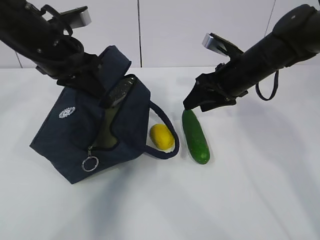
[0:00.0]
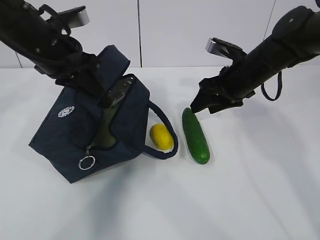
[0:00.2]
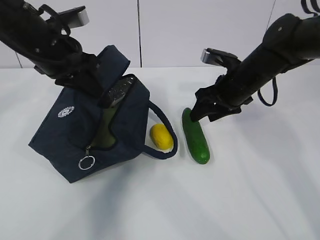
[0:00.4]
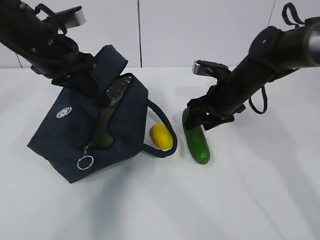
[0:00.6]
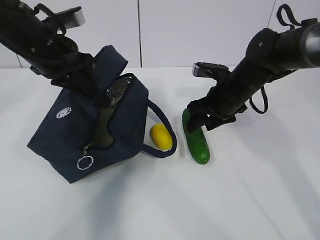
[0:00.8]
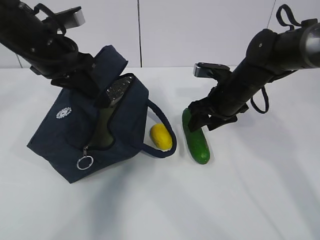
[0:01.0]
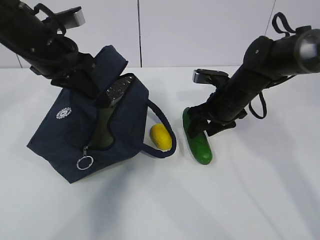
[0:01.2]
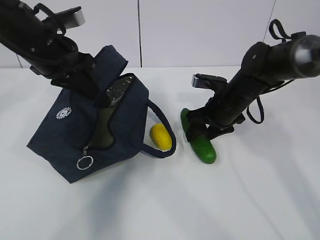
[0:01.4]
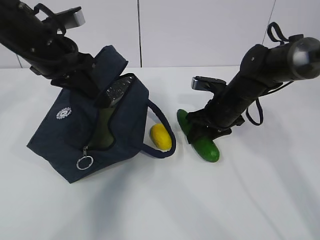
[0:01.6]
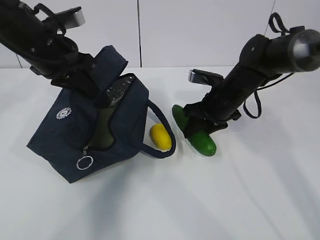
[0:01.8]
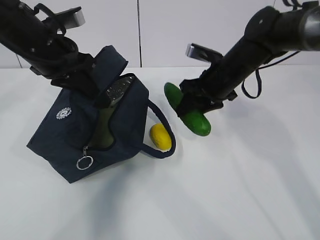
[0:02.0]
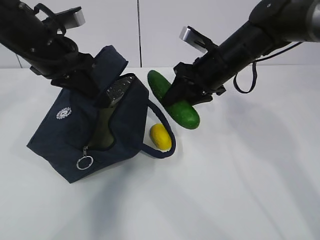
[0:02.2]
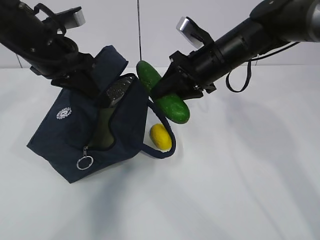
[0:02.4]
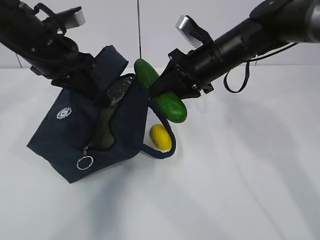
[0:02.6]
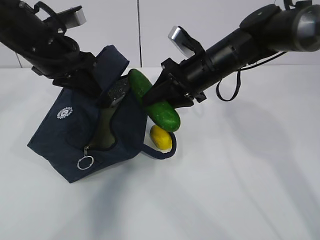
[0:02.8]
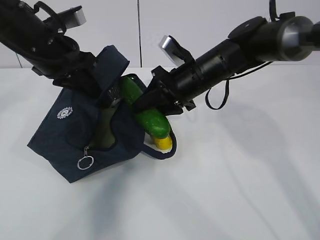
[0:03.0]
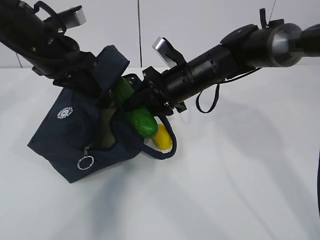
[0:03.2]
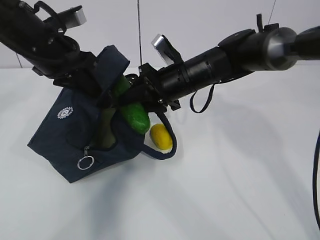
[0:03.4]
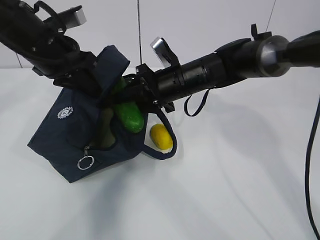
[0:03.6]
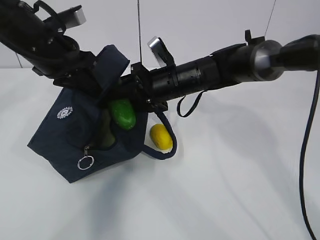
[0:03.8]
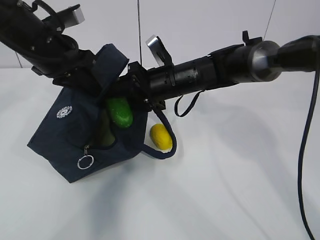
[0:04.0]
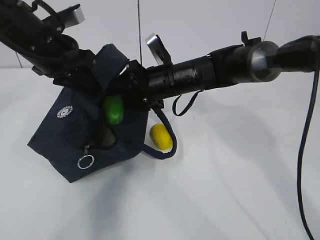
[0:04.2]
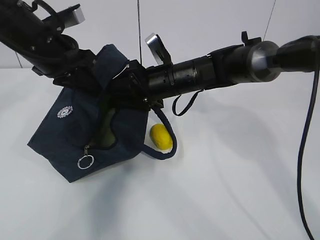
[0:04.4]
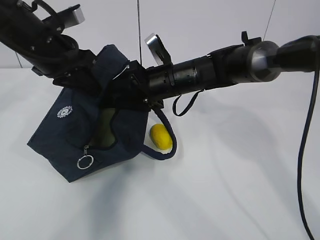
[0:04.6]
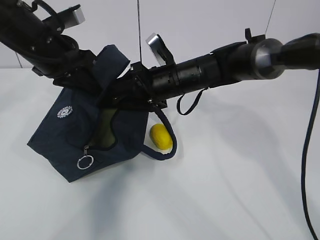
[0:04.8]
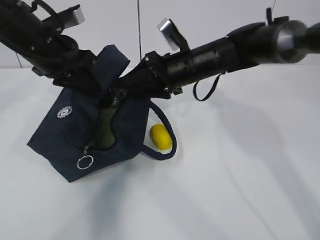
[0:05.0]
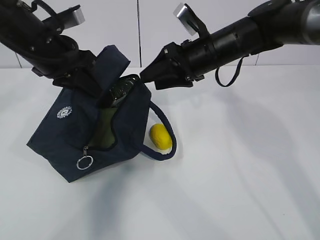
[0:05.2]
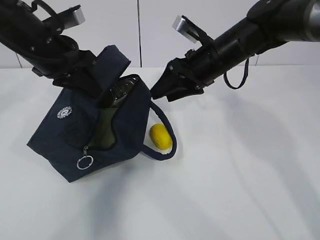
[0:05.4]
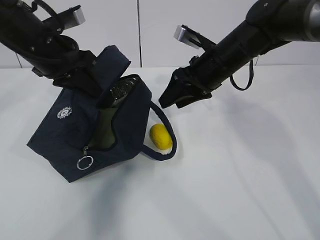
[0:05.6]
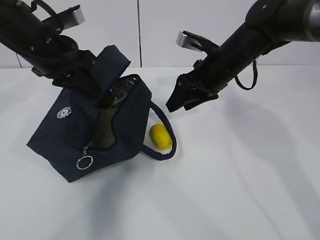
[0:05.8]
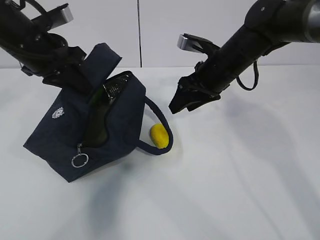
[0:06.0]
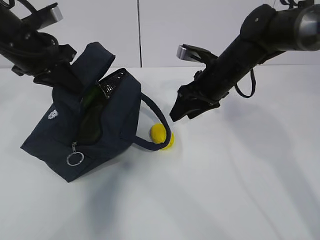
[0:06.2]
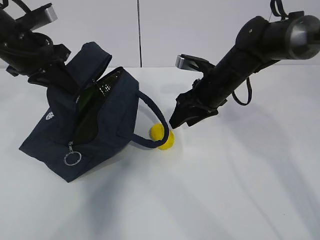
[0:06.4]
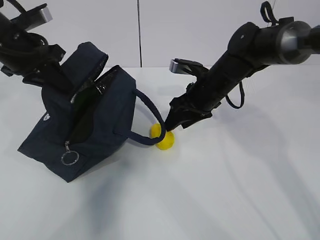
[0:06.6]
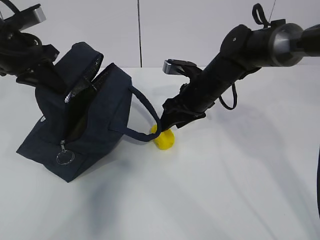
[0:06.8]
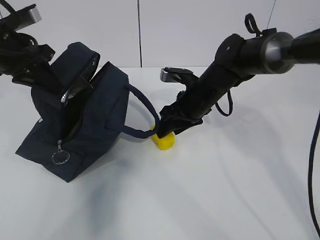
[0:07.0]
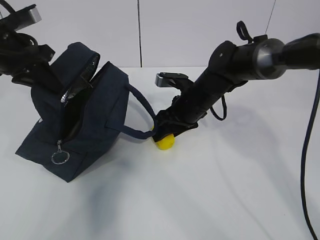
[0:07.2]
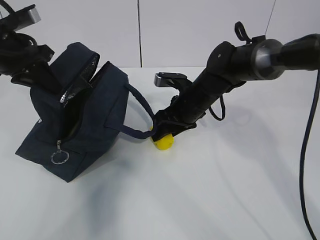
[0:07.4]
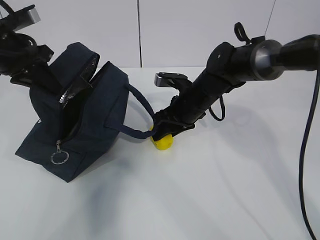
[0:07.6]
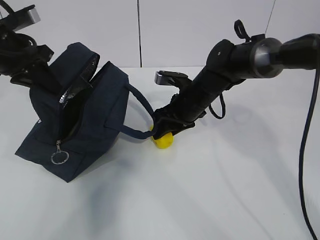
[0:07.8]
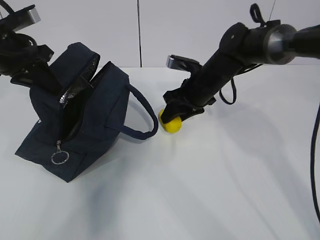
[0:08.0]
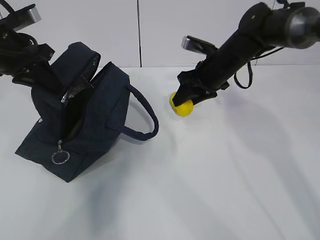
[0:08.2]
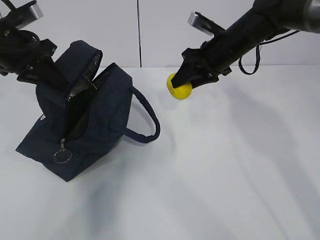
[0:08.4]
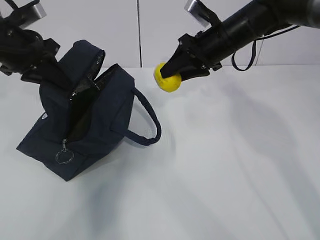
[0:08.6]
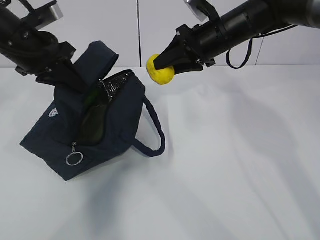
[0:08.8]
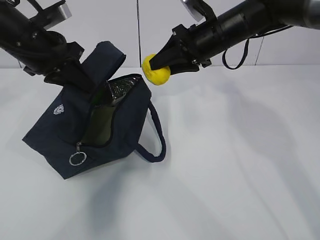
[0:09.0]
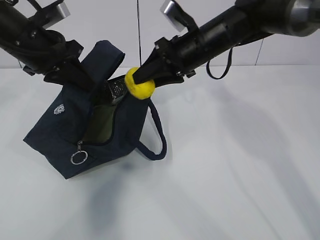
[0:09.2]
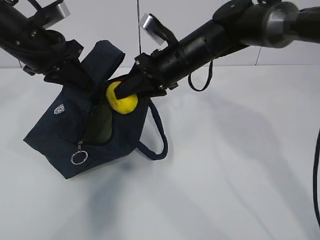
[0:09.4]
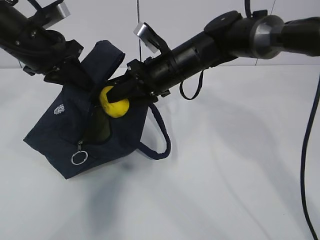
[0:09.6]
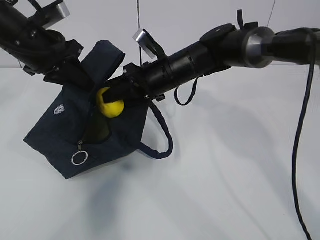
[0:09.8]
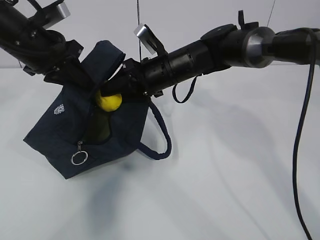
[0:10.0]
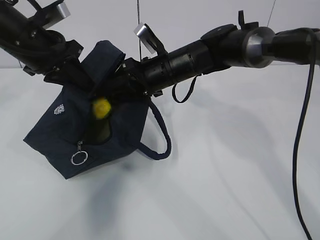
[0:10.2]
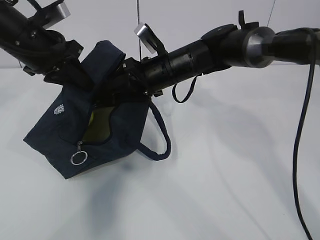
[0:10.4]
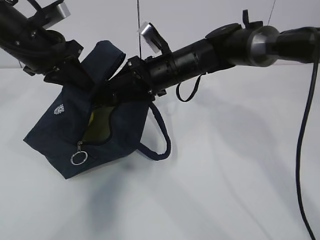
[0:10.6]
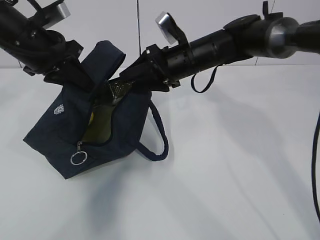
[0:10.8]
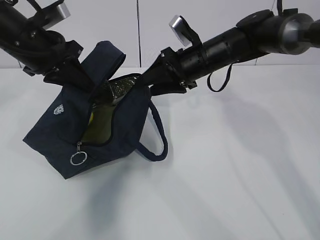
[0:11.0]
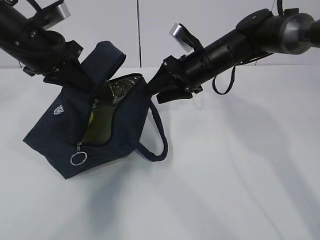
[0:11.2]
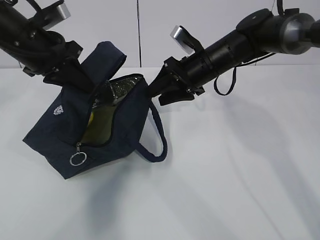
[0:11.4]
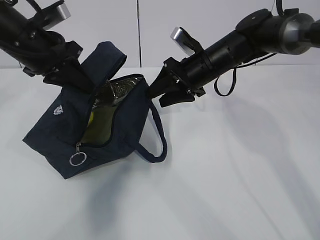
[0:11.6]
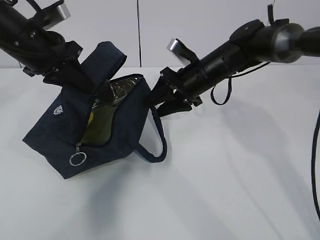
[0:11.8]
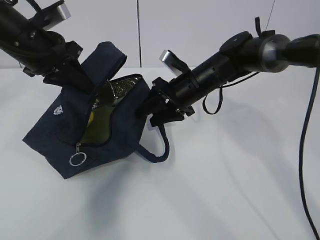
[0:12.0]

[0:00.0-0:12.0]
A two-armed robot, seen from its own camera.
Step, 0.0 to 2.2 s: Grab the lemon with your right hand.
Step, 4.8 to 6.2 s: Grab the lunch bag with your right hand.
Step, 6.6 to 8.8 s: Move the lunch bag to the right.
0.0 to 1.6 s: The right gripper shifts about 10 cm downward.
1.6 to 3.0 s: The right gripper goes approximately 10 cm upward and to the left.
3.0 to 4.4 s: The grippers make only small movements.
4.4 to 6.0 s: The right gripper heads to the right, covering approximately 10 cm.
6.0 to 7.6 s: The right gripper travels downward by approximately 10 cm; the left gripper shifts approximately 5 cm to the left.
7.6 to 9.0 s: The right gripper heads upward, covering roughly 15 cm. Meanwhile the left gripper travels to the right by about 5 cm.
9.0 to 10.4 s: The right gripper is displaced to the left and downward by about 10 cm.
10.4 to 12.0 s: The right gripper shifts some 5 cm to the right.

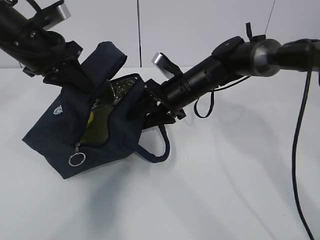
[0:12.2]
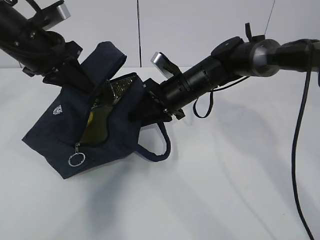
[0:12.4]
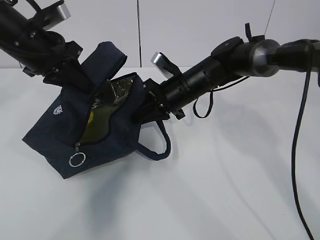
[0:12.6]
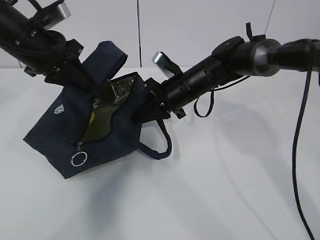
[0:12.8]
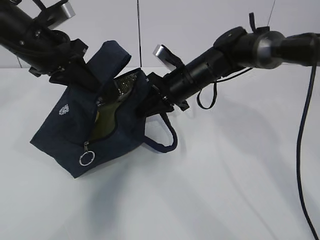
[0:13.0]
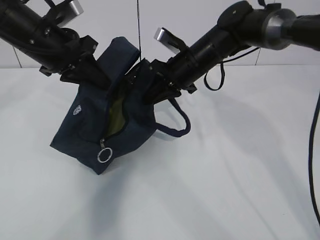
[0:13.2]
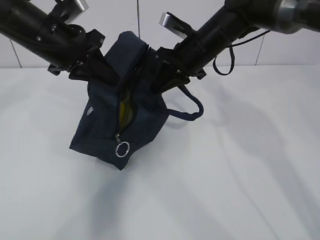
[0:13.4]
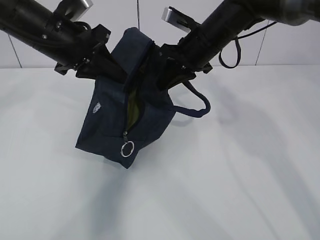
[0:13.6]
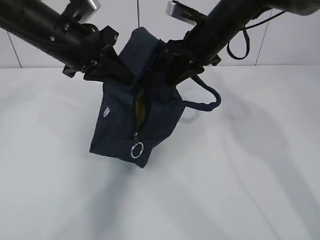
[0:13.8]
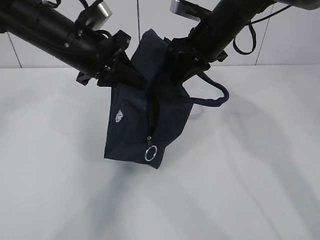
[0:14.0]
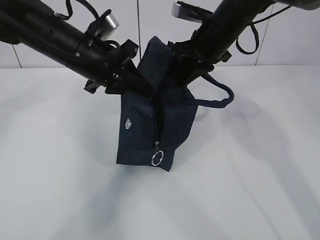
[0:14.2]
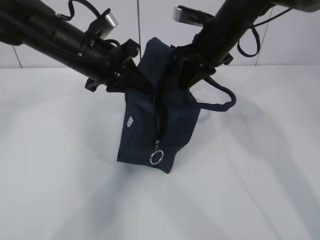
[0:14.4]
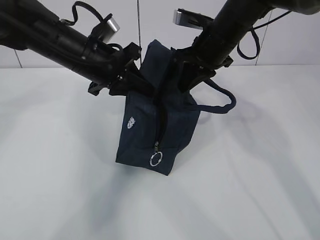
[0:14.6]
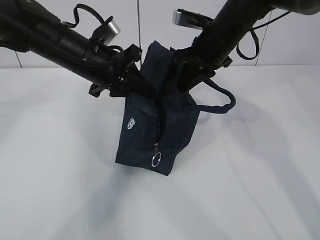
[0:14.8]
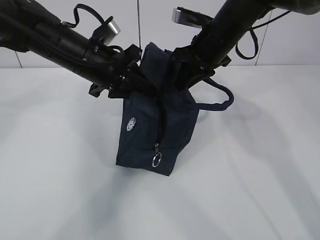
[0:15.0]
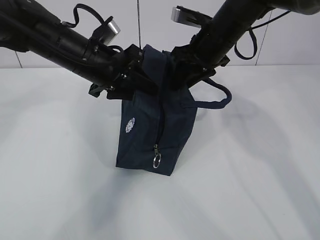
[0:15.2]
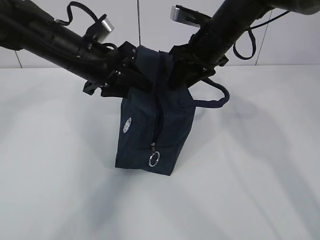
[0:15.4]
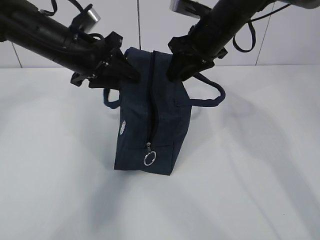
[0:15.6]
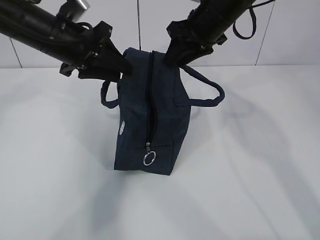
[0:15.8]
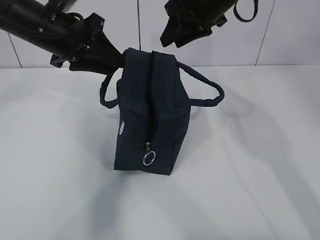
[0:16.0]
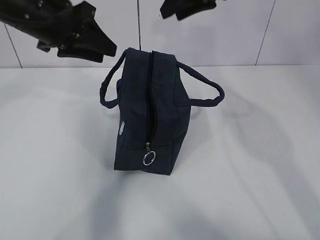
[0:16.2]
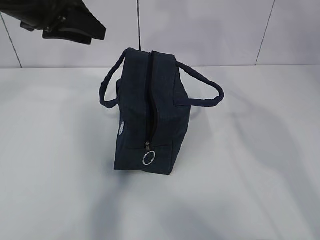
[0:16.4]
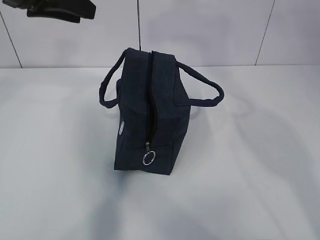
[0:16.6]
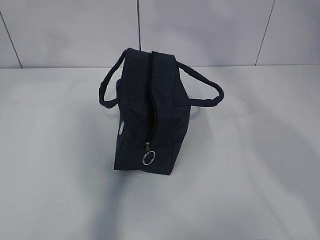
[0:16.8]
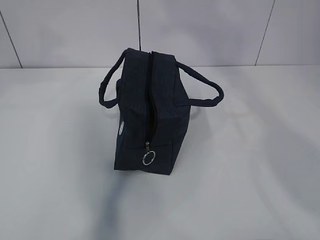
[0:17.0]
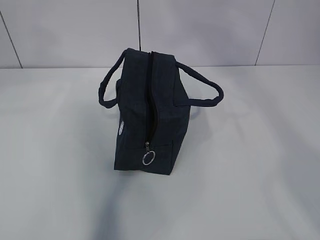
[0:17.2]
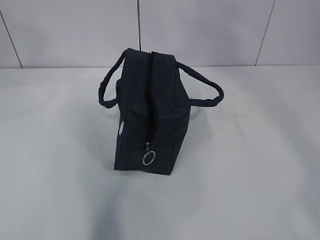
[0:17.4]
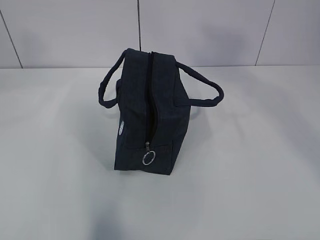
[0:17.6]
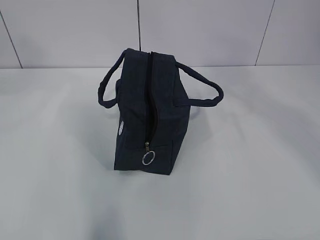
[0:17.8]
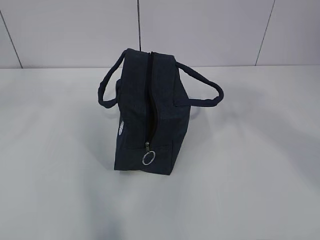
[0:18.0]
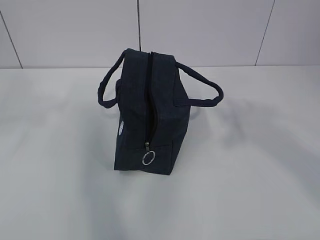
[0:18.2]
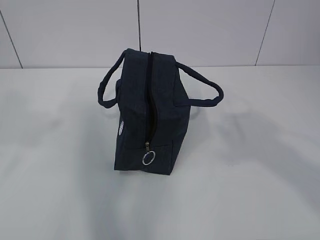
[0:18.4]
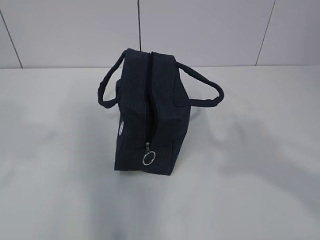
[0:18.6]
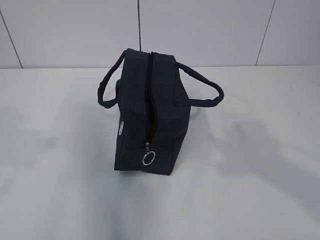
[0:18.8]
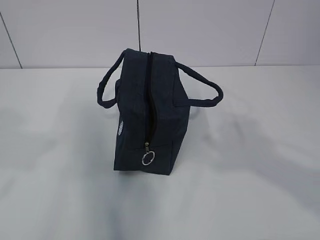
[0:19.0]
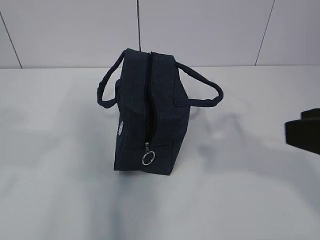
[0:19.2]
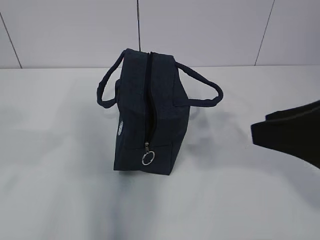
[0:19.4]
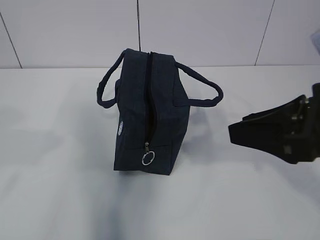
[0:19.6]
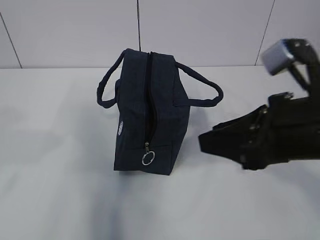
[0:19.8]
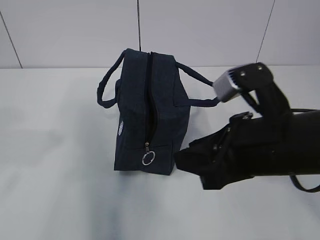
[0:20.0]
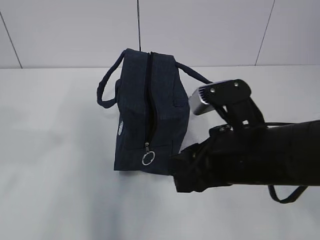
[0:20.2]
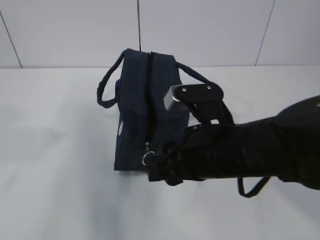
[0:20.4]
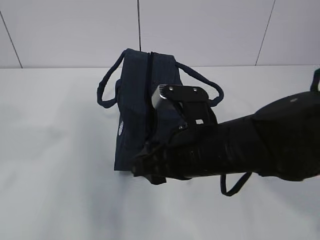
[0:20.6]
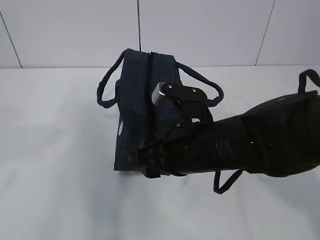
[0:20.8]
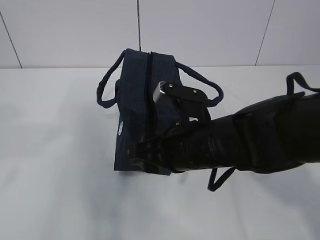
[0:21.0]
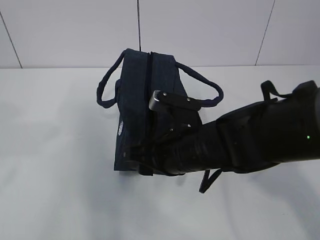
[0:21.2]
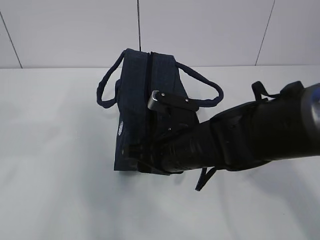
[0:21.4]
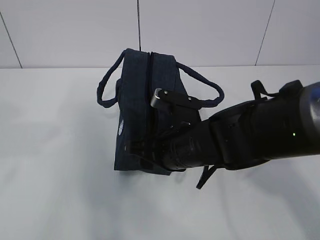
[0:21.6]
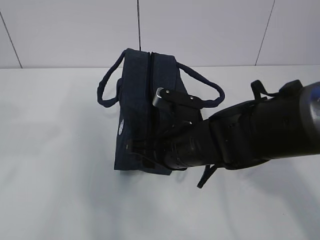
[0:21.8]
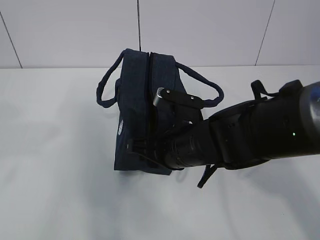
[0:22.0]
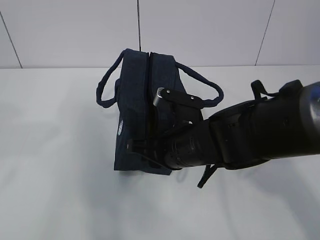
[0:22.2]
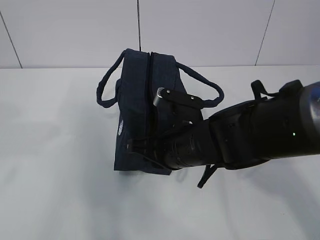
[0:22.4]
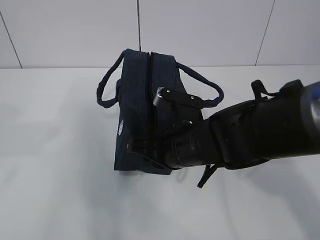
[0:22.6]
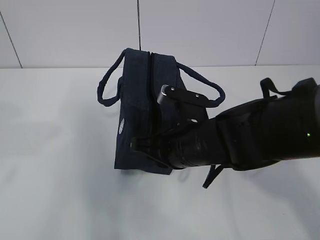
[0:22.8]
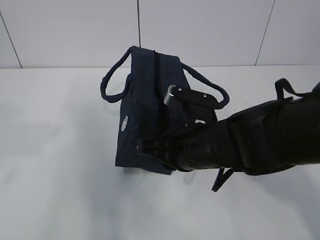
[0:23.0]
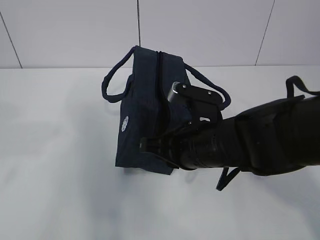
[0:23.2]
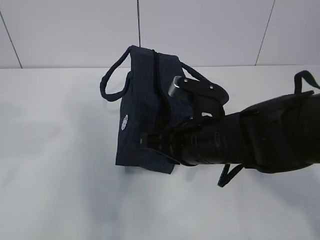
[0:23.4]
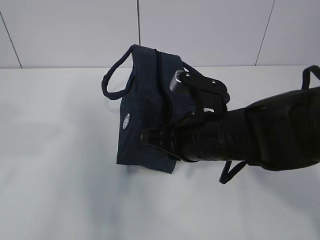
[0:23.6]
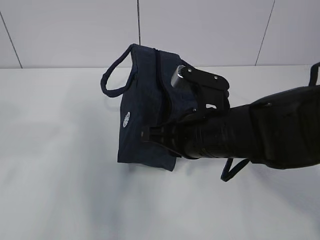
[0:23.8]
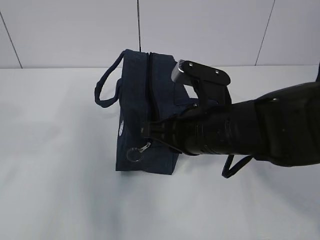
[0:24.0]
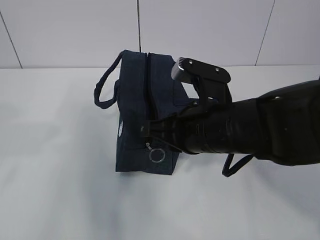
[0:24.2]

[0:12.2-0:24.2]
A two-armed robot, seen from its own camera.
12.2 to 13.8 s: The right gripper moves upward, approximately 10 cm, and closes up. Meanwhile the left gripper is displaced to the right by roughly 5 cm.
13.8 to 15.2 s: The right gripper opens. The left gripper changes place by about 5 cm, and opens.
15.2 to 16.6 s: The right gripper moves upward, some 25 cm; the left gripper is displaced upward and to the left by some 15 cm.
16.6 to 18.2 s: The right gripper shifts approximately 30 cm backward; the left gripper travels backward by about 20 cm.
18.2 to 19.8 s: The left gripper goes some 10 cm downward. The right gripper moves downward, forward and to the left, about 25 cm.
19.8 to 21.2 s: The right gripper is displaced to the left, downward and forward by approximately 15 cm.
21.2 to 22.6 s: The right gripper closes.
22.6 to 24.2 s: The right gripper shifts approximately 5 cm upward.
